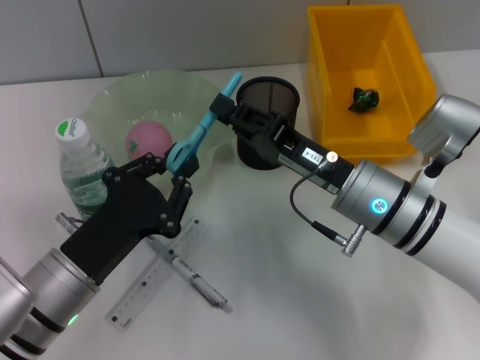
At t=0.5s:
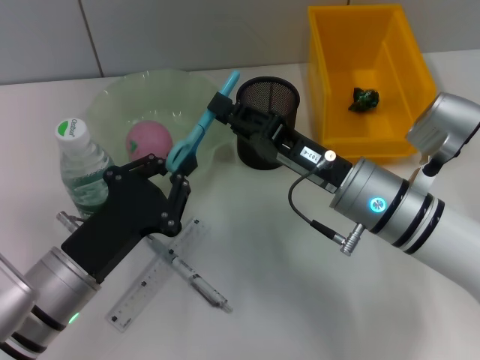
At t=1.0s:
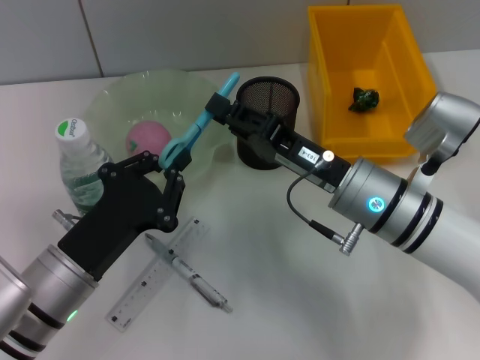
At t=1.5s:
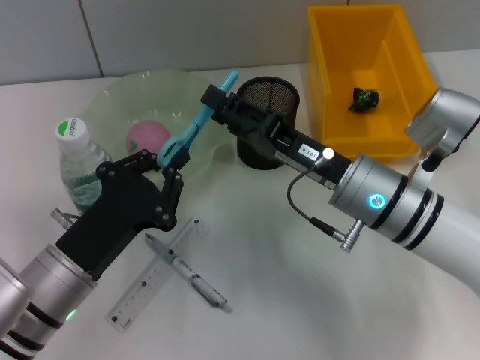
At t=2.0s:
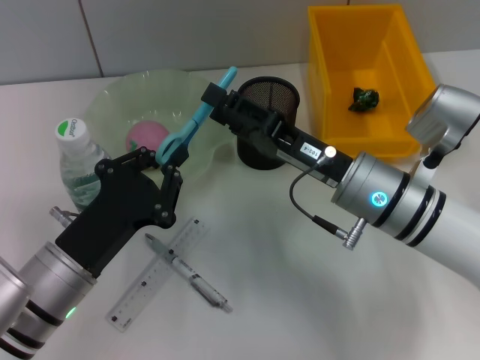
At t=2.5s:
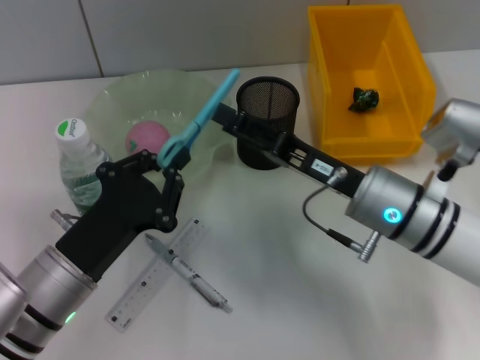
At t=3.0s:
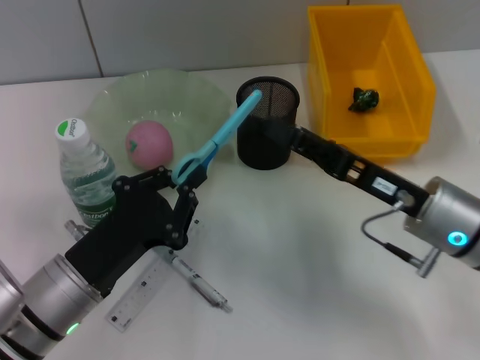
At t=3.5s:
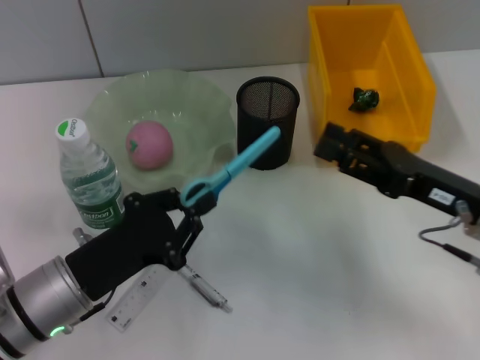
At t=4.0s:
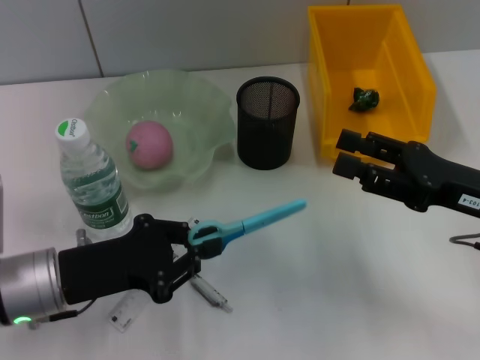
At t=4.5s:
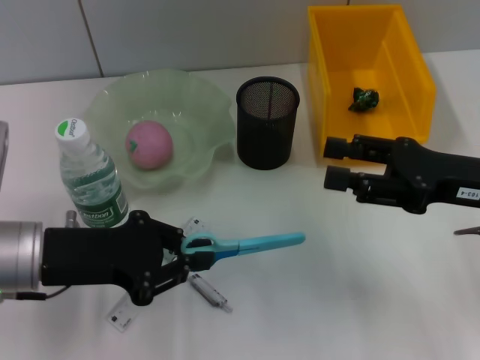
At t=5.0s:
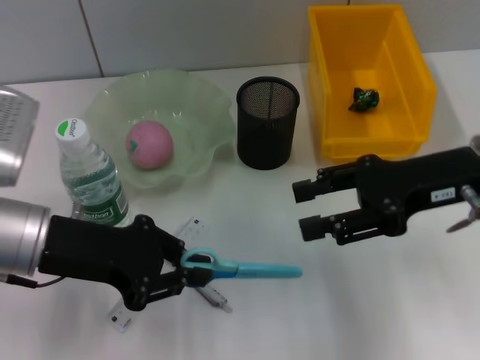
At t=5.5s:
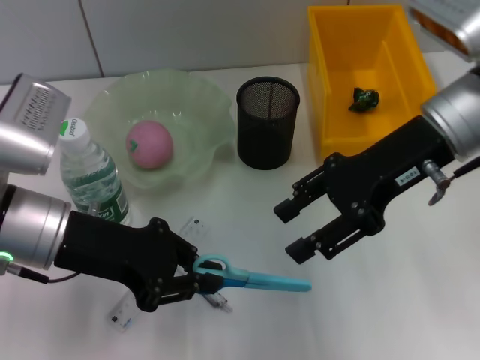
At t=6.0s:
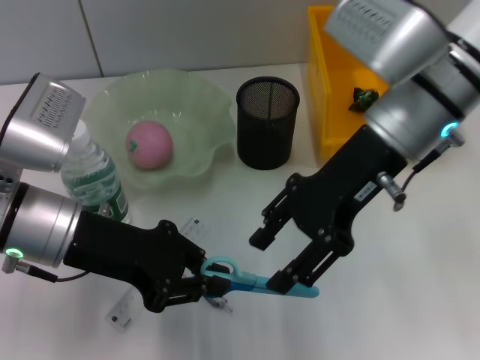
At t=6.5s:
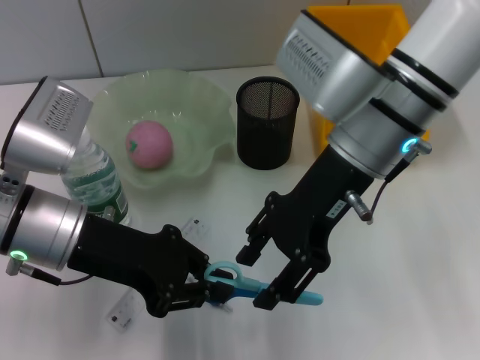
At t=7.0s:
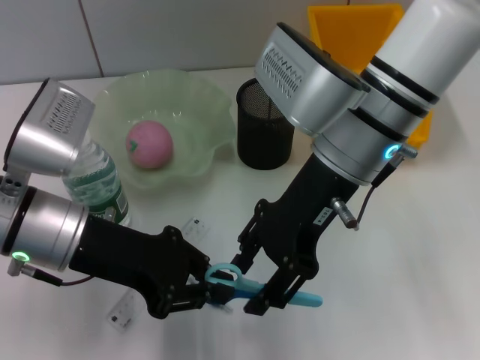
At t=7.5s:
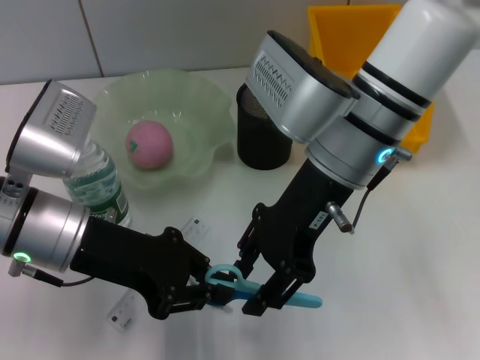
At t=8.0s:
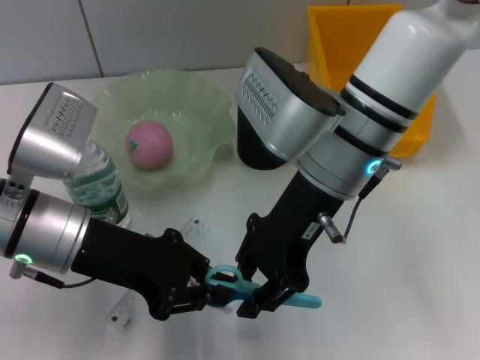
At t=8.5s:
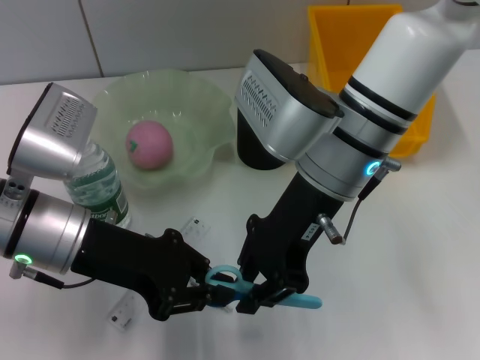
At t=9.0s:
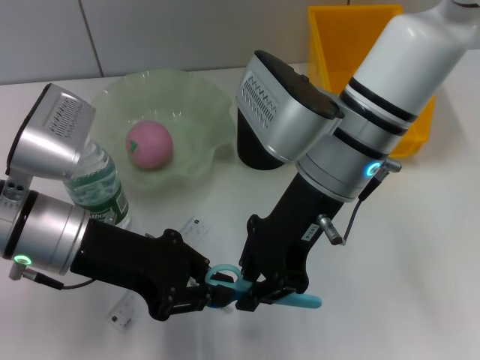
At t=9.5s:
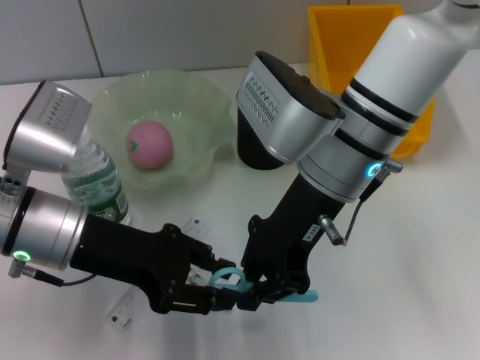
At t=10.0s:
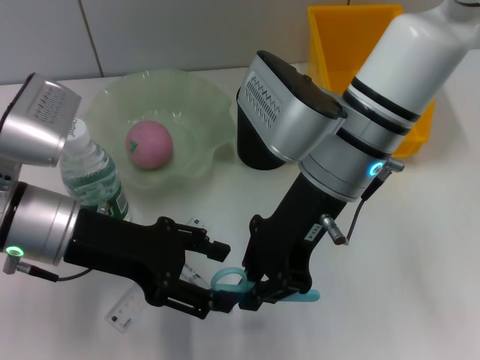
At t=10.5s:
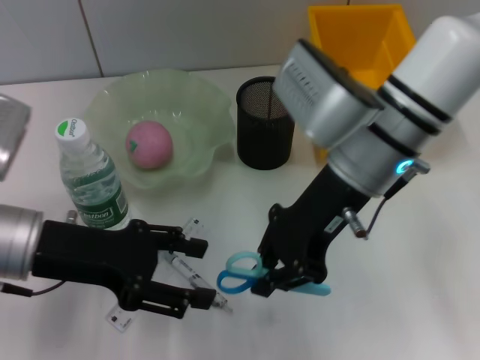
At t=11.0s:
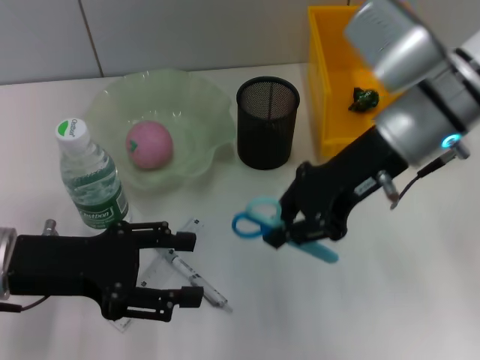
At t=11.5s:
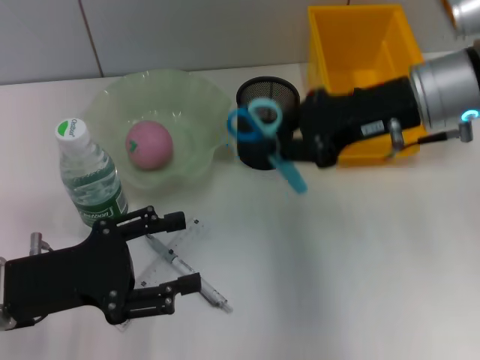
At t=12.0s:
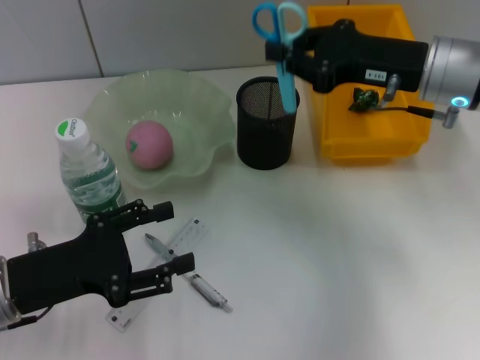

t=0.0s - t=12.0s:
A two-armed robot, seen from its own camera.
Step, t=0.0s - t=2.0s: Pass the blue scissors from the right hand to the left hand.
Step, t=2.5s - t=10.0s: Pass the blue scissors from the left hand to the right hand.
t=0.0s - t=2.0s: The right gripper opens up.
t=2.0s - t=4.0s: The right gripper shifts approximately 15 cm to the right.
t=4.0s - t=6.0s: The right gripper moves to the left, upward and forward, approximately 20 cm. Meanwhile the left gripper shifts about 5 cm upward.
t=6.0s - t=8.0s: The right gripper moves to the left, some 5 cm.
t=8.0s - t=10.0s: The left gripper opens up.
t=10.0s - t=12.0s: The right gripper is displaced to the right by approximately 15 cm; the left gripper moves backward, to the left and downward, approximately 10 cm.

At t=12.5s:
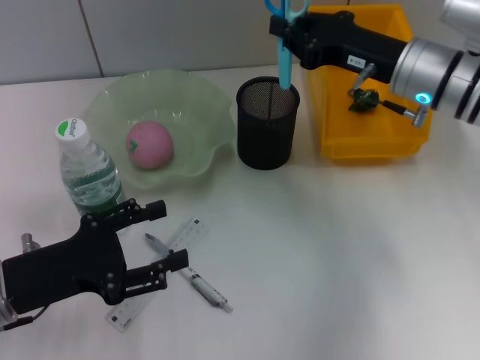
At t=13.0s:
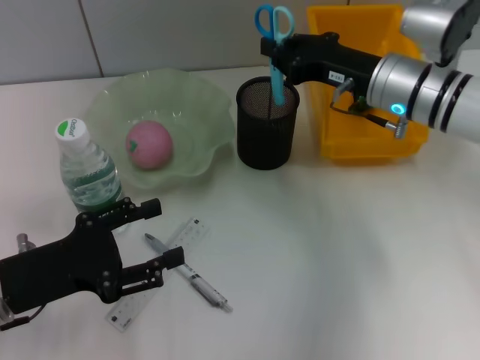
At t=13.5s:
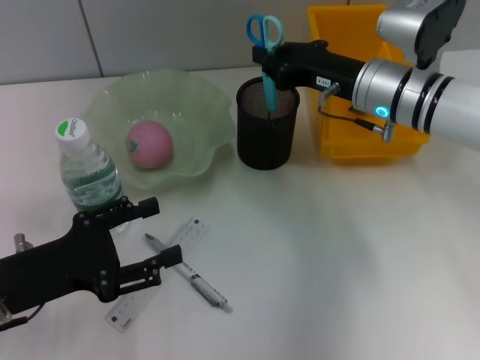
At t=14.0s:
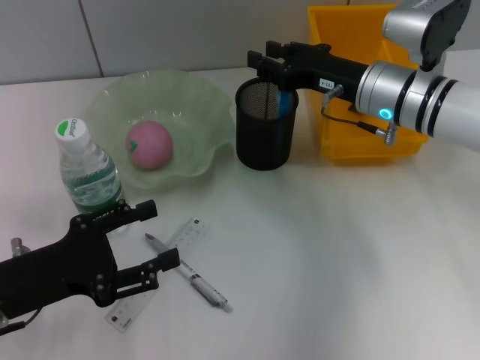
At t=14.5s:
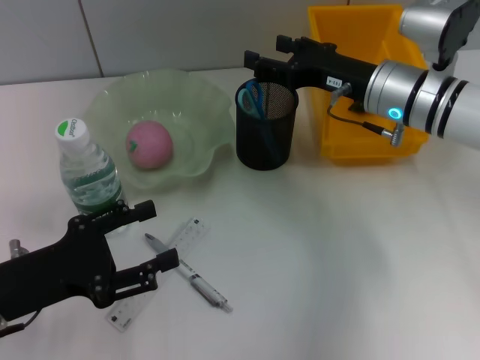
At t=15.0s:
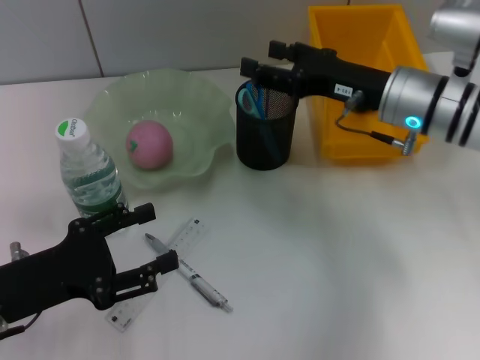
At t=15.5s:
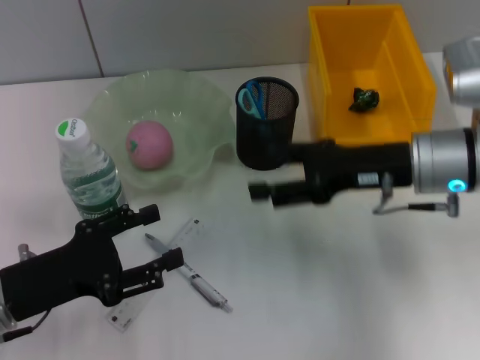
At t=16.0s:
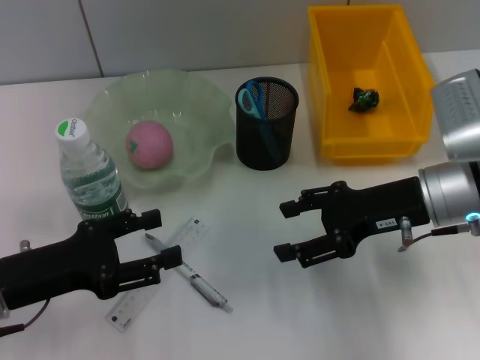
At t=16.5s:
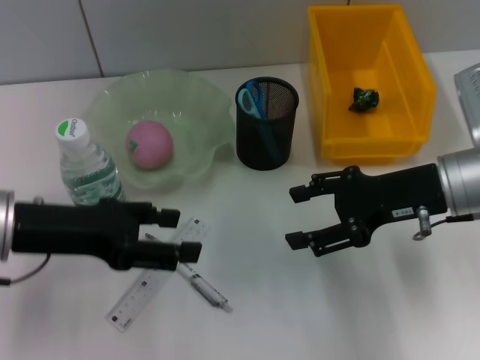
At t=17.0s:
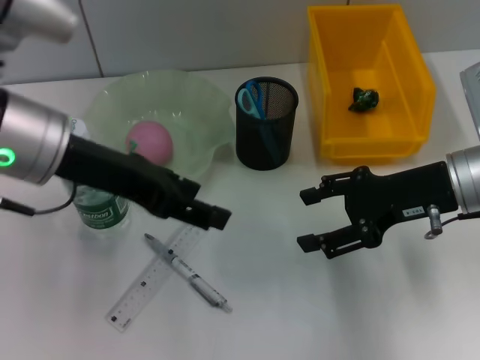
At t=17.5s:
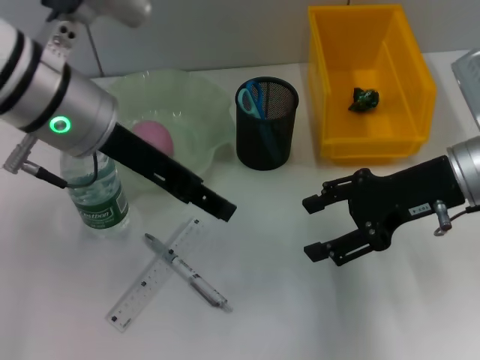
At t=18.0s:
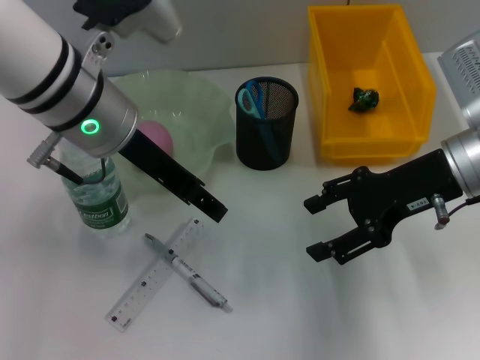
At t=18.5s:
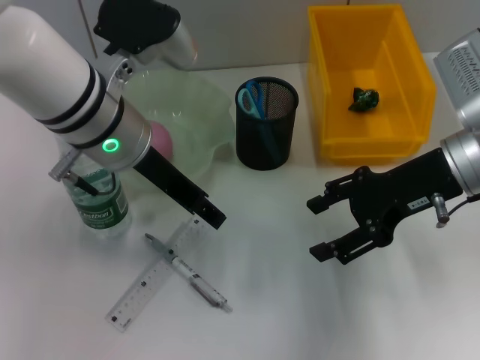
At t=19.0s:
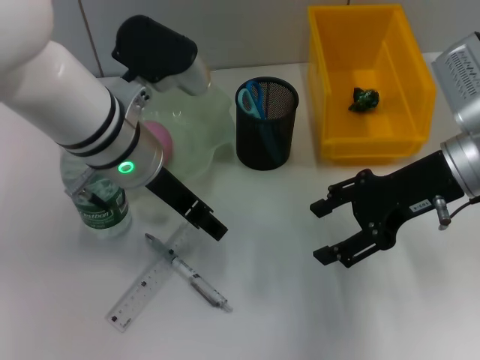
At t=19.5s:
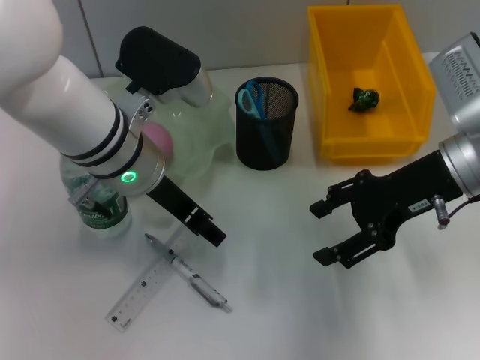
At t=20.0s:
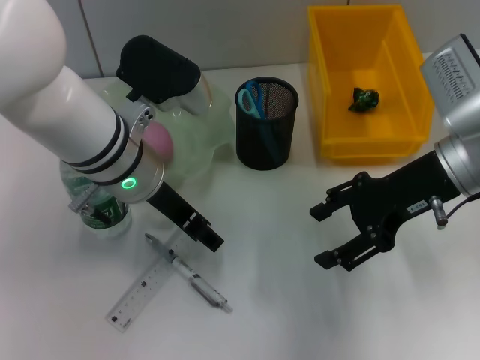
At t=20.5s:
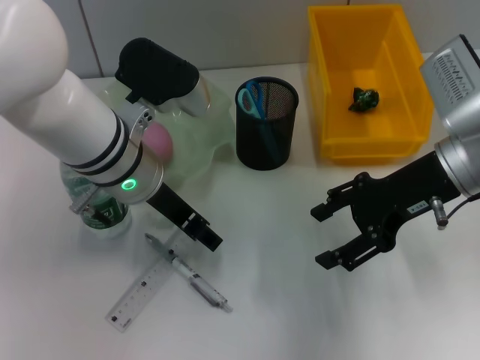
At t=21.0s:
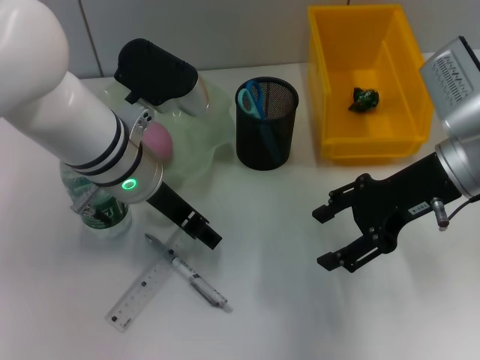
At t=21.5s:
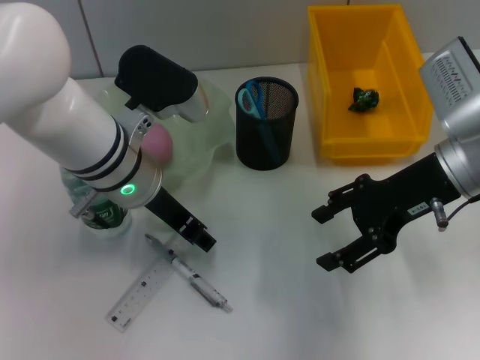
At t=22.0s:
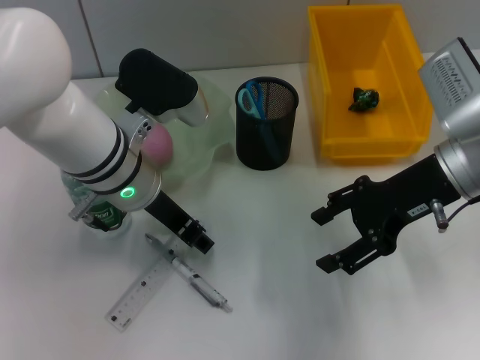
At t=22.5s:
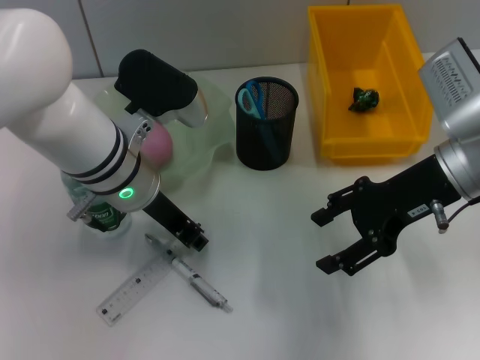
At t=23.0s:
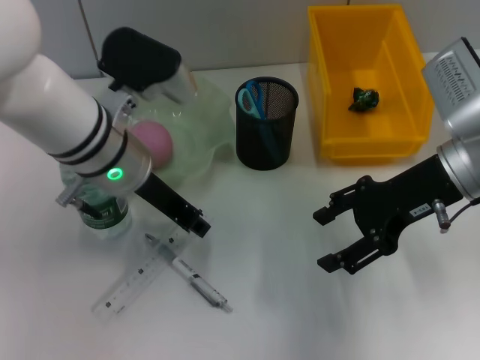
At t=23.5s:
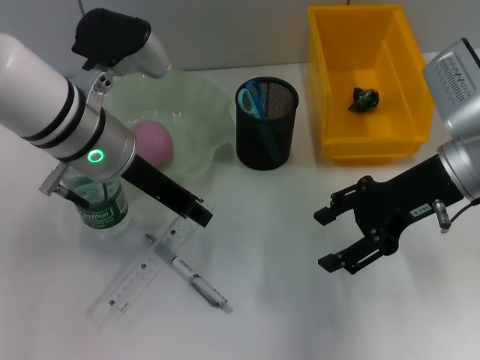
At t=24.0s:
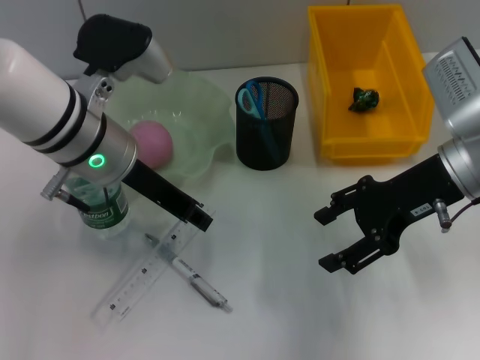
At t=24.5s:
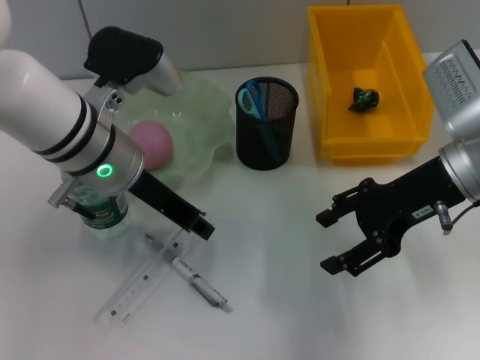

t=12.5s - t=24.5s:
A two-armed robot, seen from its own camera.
Step, t=14.5s - t=22.5s: Grab the ruler with the left hand.
t=12.5s - t=14.5s: The right gripper opens its fingers.
t=14.5s - t=16.5s: The left gripper goes roughly 10 cm upward, while the right gripper heads backward, covering approximately 10 cm.
t=16.5s - t=18.5s: The left gripper shifts approximately 15 cm to the right and forward.
t=18.5s - t=20.5s: The grippers stay close to where they were, moving slightly.
t=20.5s - t=22.5s: Neither gripper changes place.
t=22.5s - t=24.5s: The grippers move only a little.

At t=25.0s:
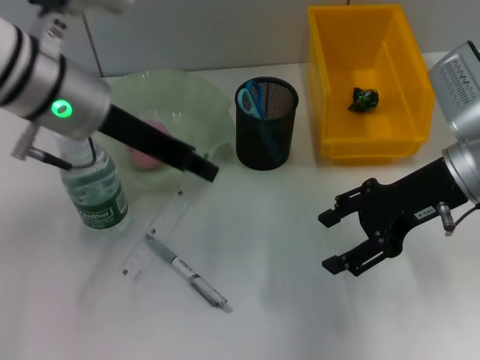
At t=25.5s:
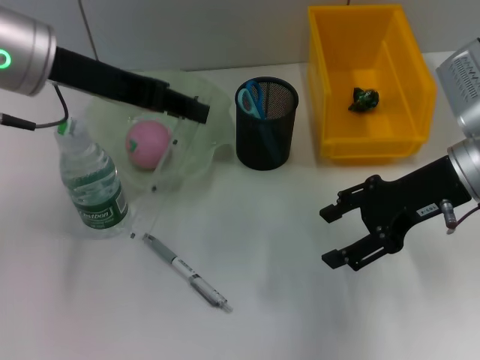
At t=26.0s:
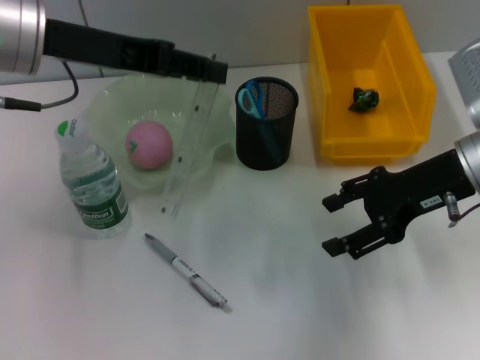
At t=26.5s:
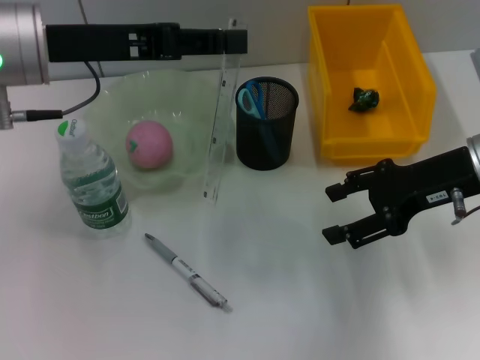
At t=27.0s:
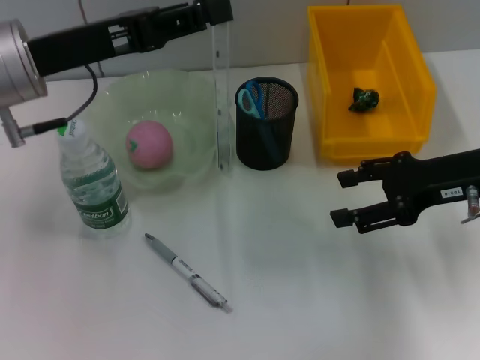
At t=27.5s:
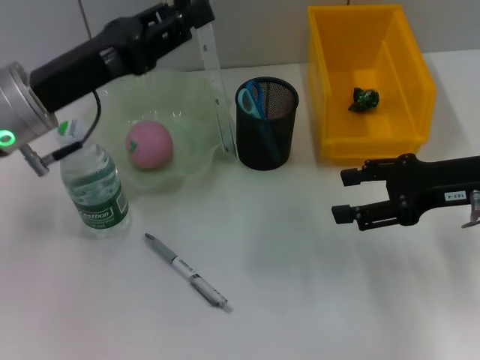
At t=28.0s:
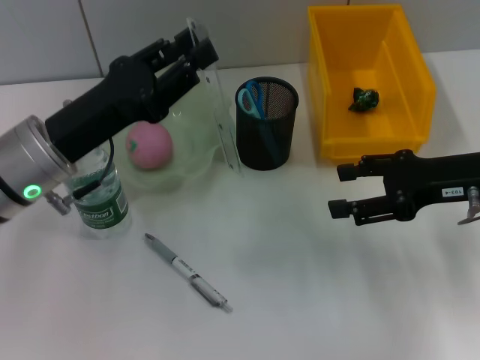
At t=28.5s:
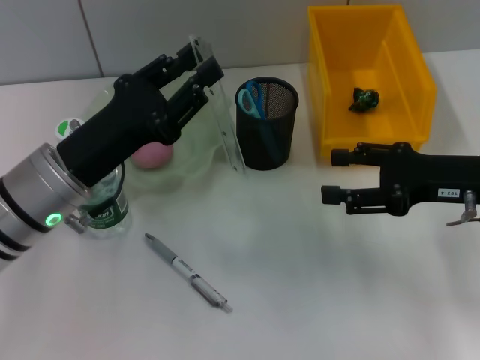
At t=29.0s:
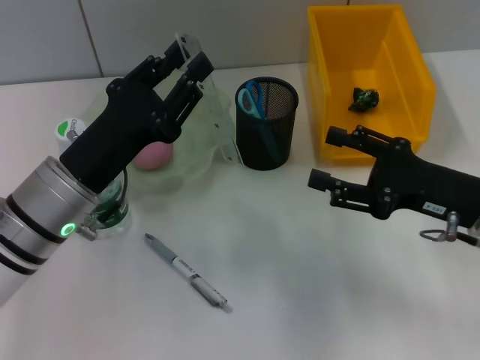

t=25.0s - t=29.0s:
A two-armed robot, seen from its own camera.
t=25.0s - t=27.0s: The left gripper heads to the left, covering some 5 cm.
t=27.0s - t=29.0s: The right gripper goes roughly 5 cm downward, while the left gripper is displaced downward and backward by approximately 15 cm.
